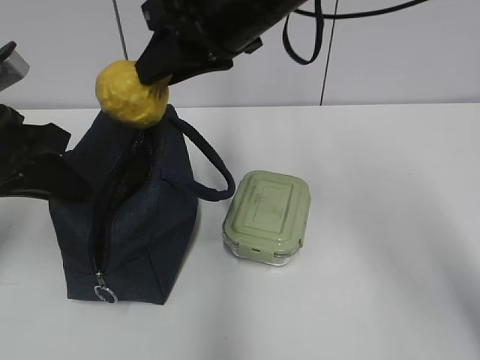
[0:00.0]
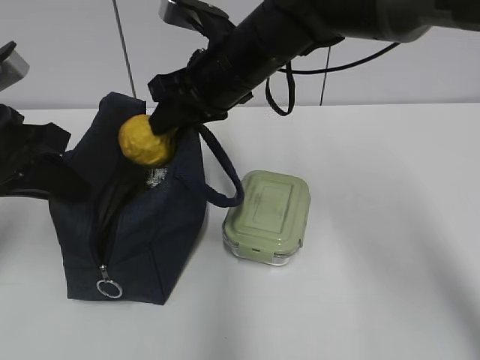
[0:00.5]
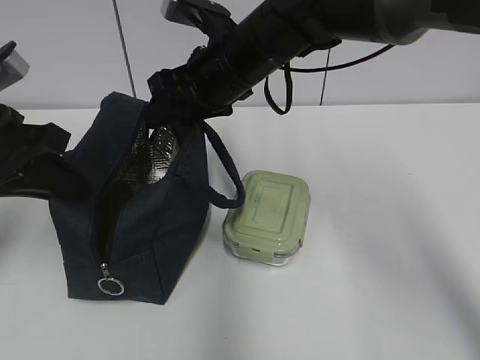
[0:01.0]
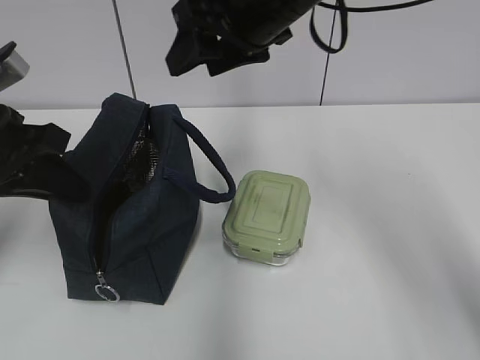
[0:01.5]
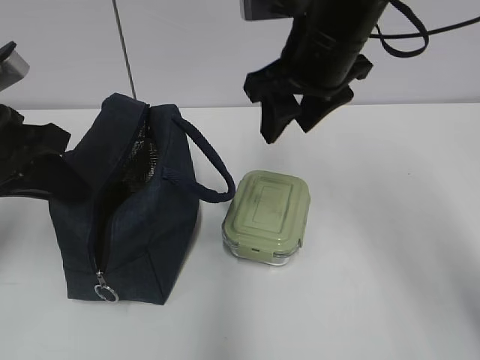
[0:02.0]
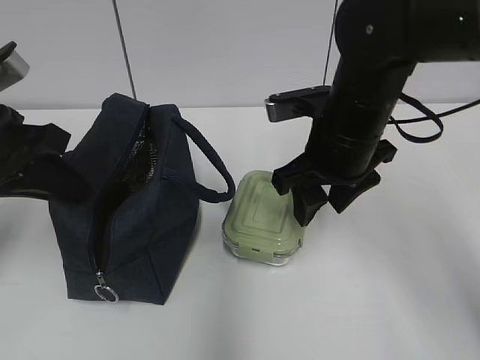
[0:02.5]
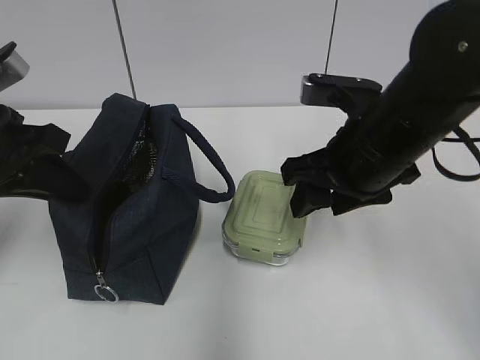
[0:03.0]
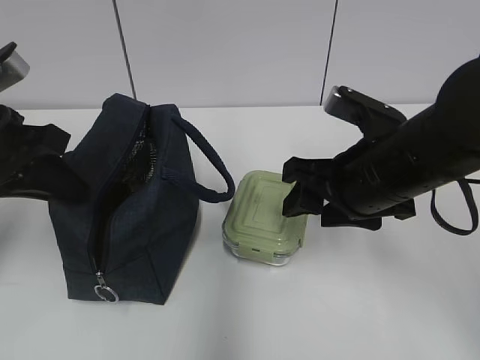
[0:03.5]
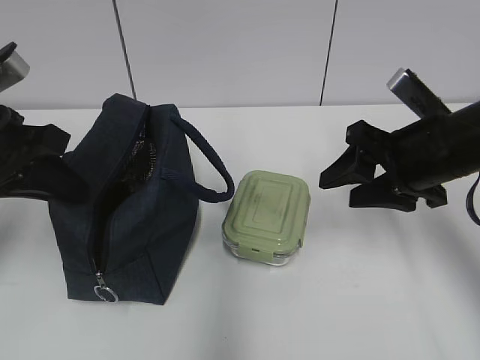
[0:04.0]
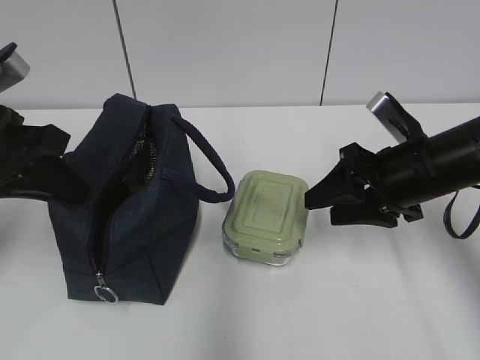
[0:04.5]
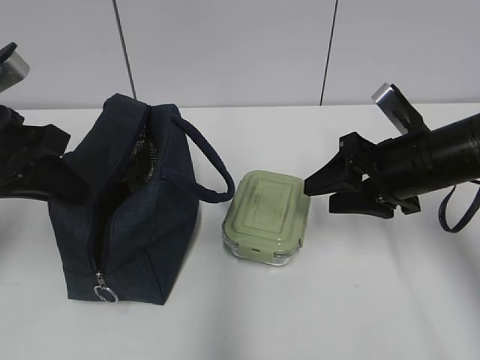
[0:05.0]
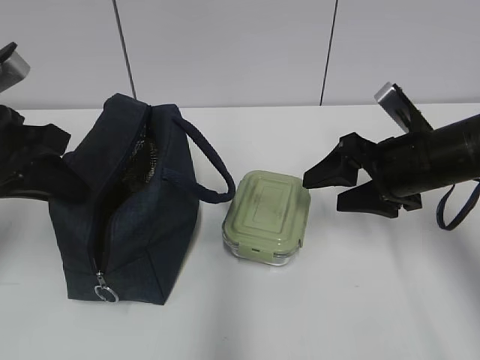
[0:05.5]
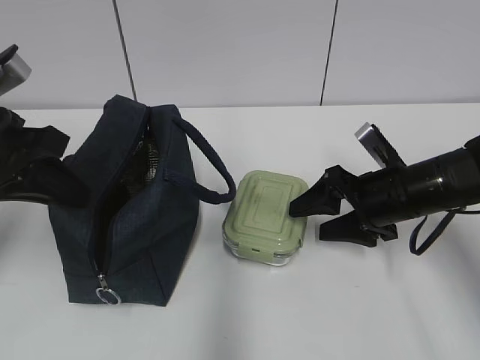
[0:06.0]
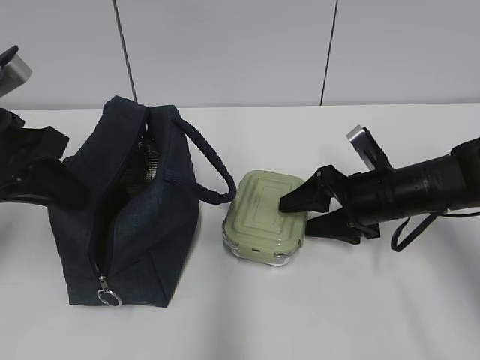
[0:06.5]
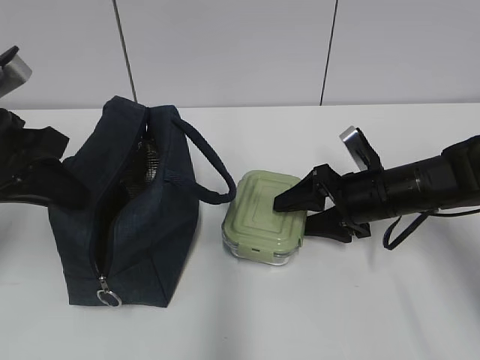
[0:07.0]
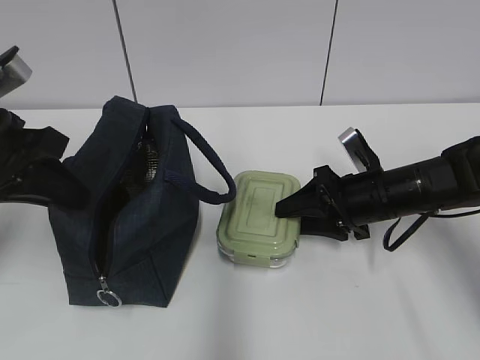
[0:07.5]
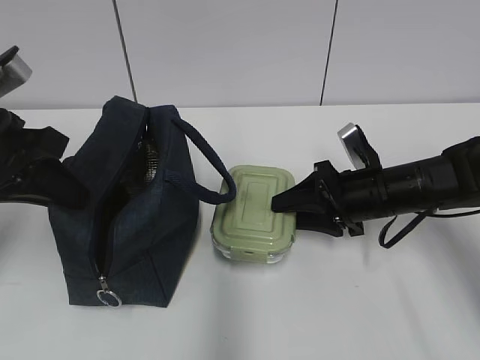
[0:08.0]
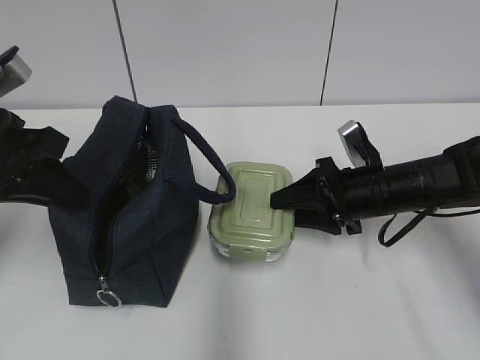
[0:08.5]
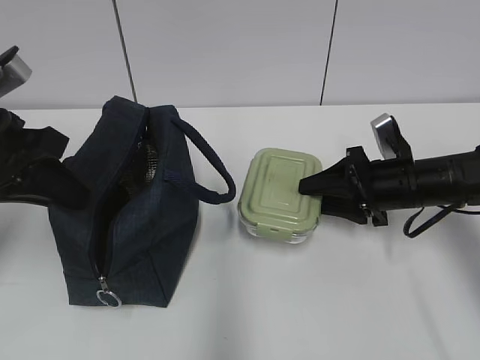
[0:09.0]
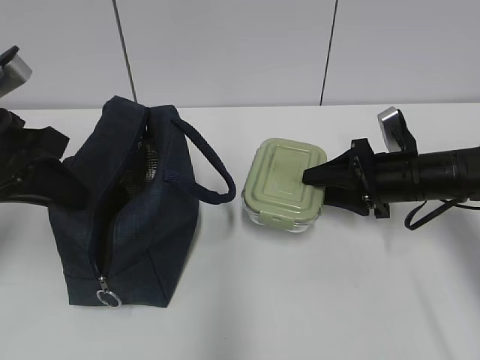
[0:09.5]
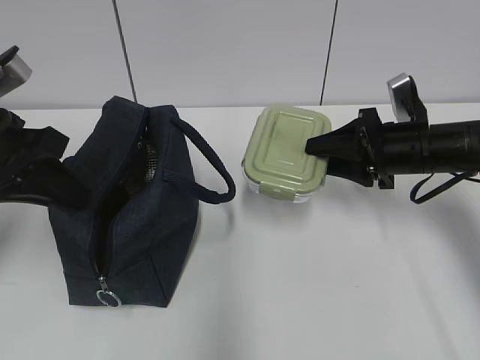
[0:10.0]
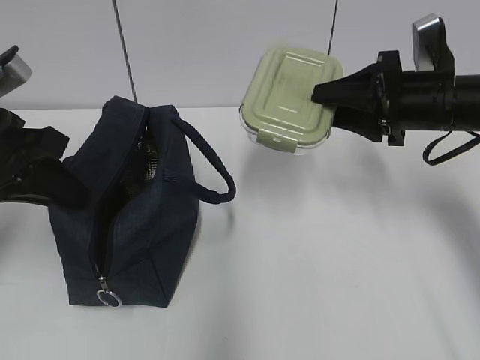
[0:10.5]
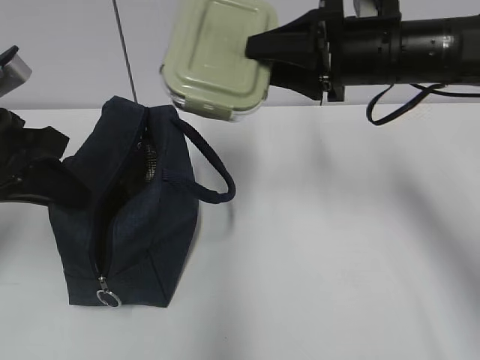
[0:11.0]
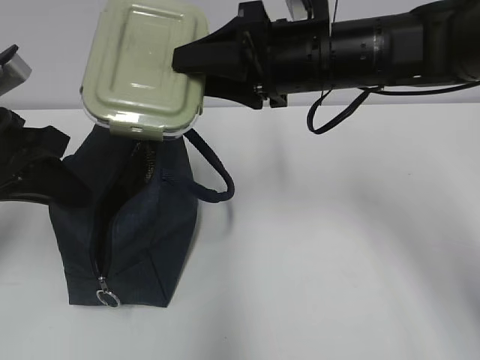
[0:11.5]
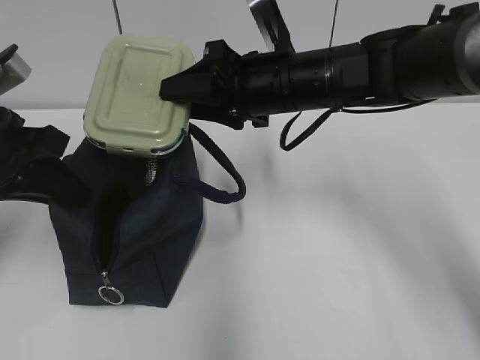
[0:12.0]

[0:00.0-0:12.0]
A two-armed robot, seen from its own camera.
Step, 0:01.5 to 0:07.5: Grab the lunch box with your right hand.
Step, 0:08.0 to 0:11.0: Grab the lunch bag with your right hand.
0:00.0 to 0:02.0: The right gripper shifts about 5 cm to the right.
0:02.0 to 0:04.0: The right gripper moves to the right, downward and backward, approximately 15 cm.
0:04.0 to 0:06.0: The right gripper moves downward, some 10 cm.
0:06.0 to 0:08.0: The right gripper closes up.
0:08.0 to 0:10.0: The right gripper travels upward by about 5 cm.
0:10.0 to 0:12.0: The right gripper heads to the left and upward, covering approximately 20 cm.

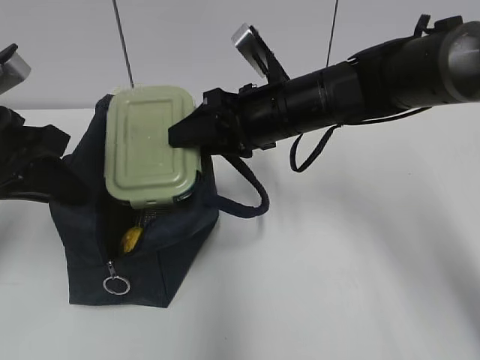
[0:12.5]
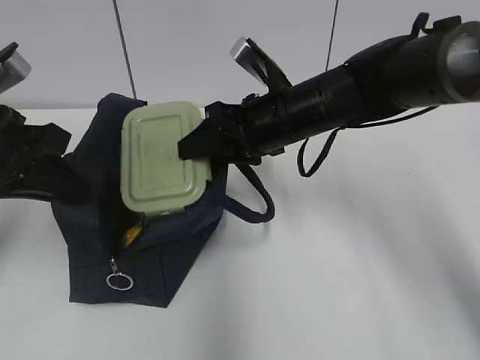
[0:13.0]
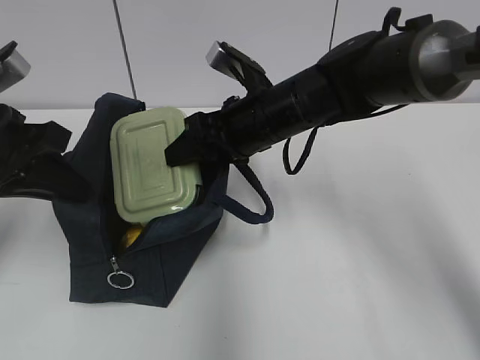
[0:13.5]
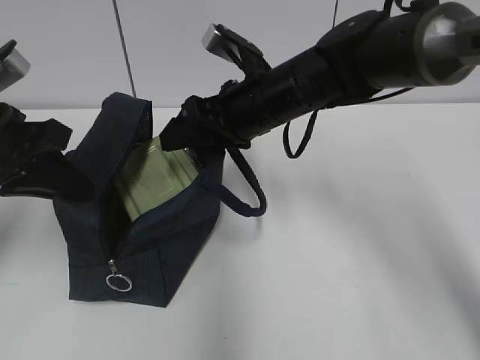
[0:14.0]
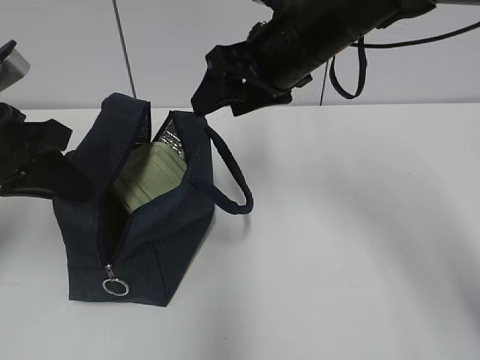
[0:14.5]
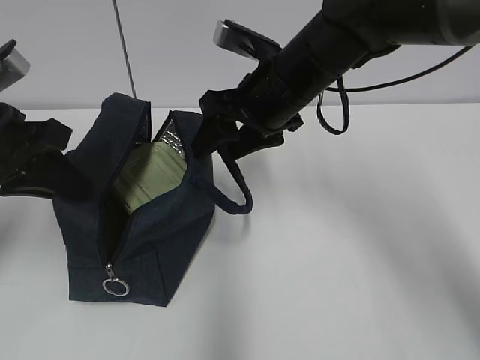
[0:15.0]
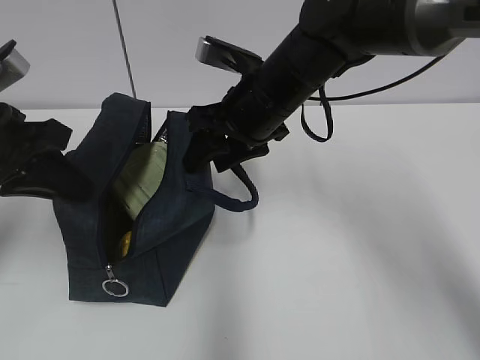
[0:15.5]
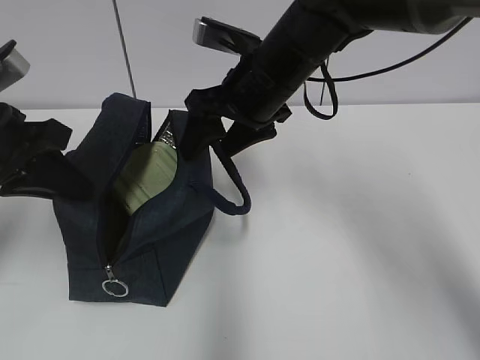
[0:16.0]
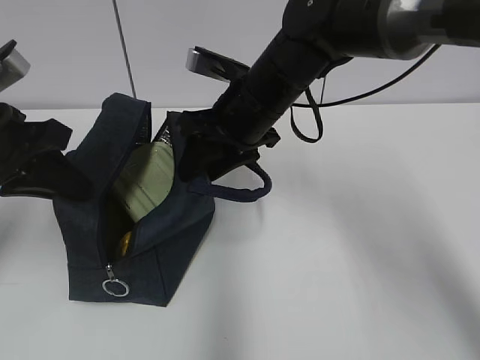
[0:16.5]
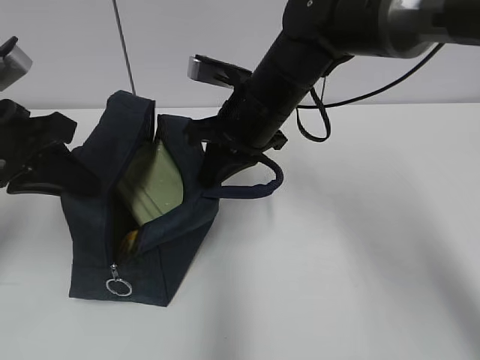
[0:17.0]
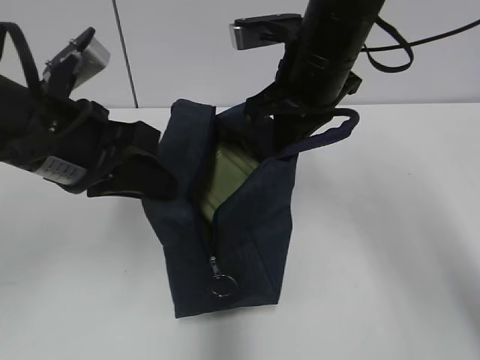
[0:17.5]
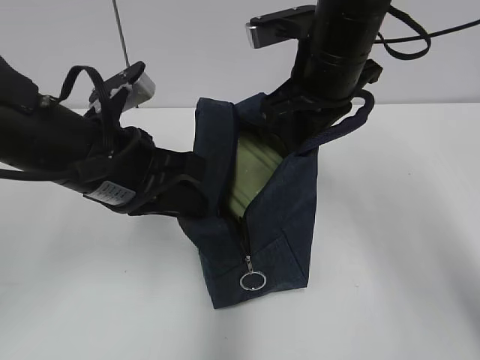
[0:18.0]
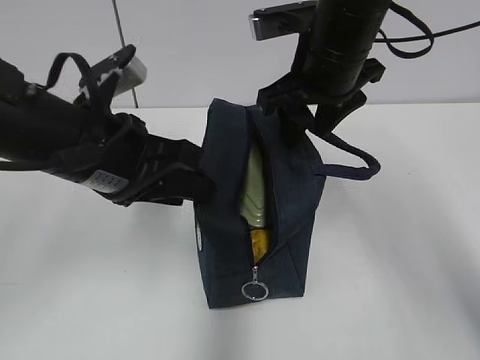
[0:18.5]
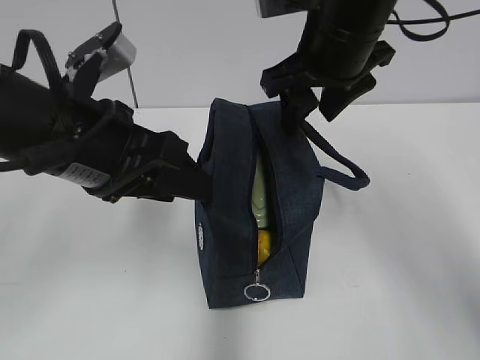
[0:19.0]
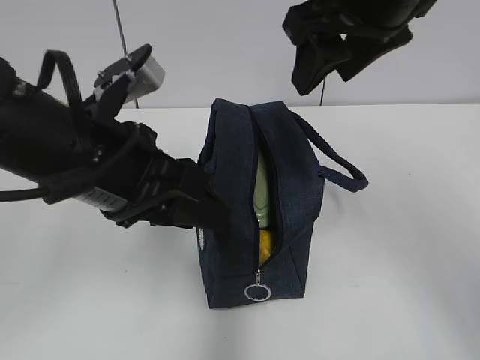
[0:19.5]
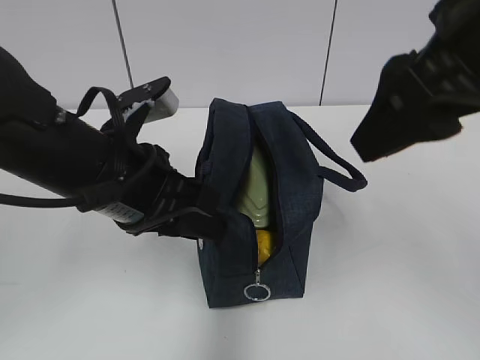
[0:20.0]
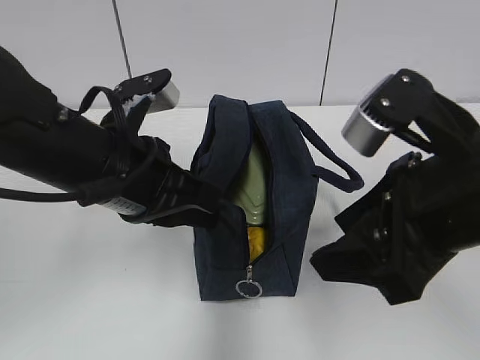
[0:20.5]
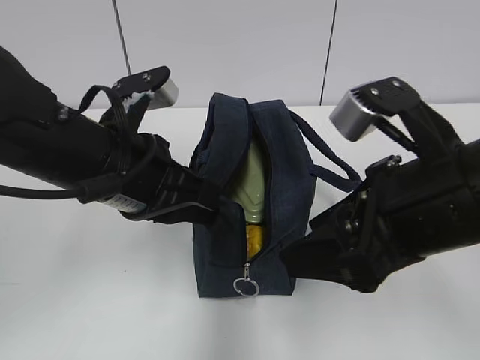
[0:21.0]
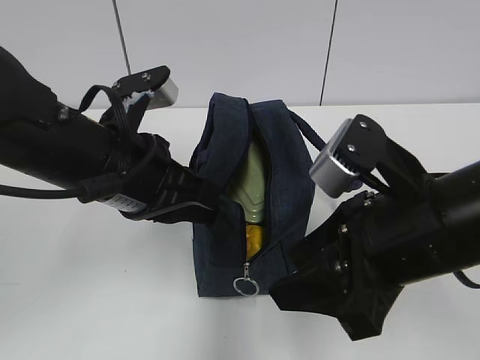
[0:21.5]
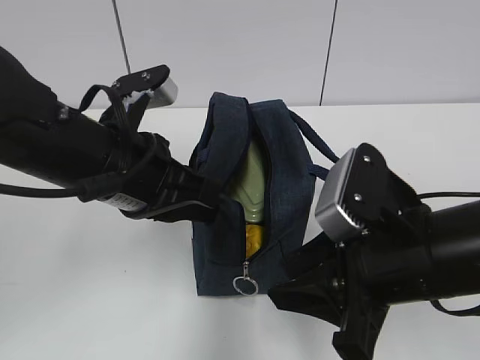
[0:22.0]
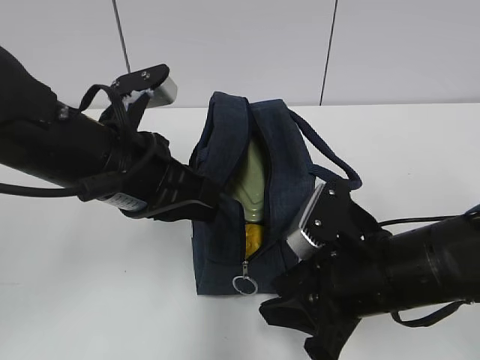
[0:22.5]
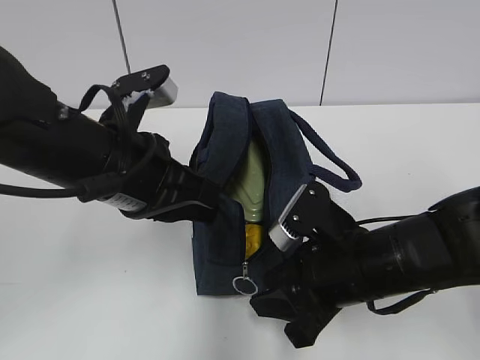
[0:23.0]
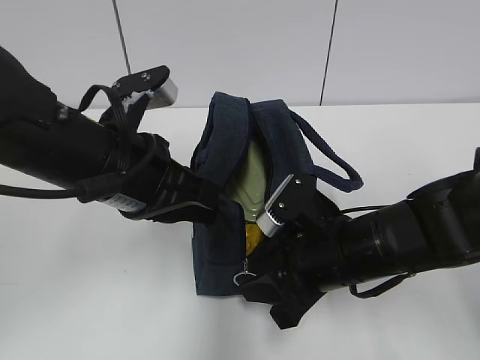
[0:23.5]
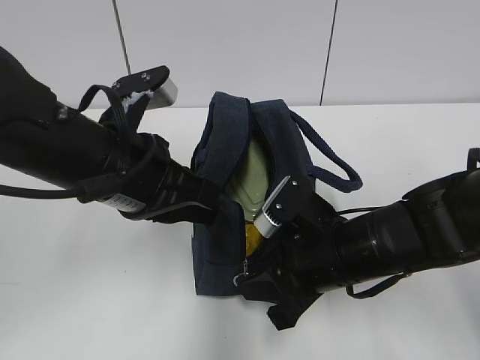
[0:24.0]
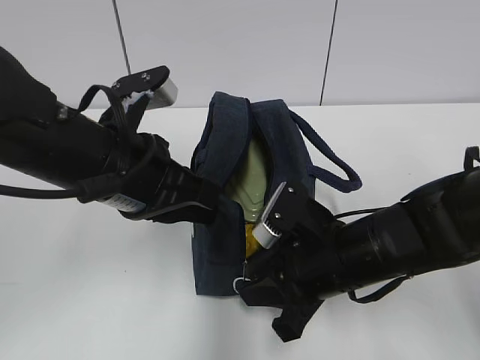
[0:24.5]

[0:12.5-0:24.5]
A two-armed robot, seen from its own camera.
Step, 0:12.5 to 0:14.5: Place it into the bag with your right hand.
Step, 0:16.0 to 0:17.5: Move the lunch bag to the left.
Step, 0:18.0 to 0:20.5: Grab the lunch bag with your left hand.
0:12.5 to 0:14.5: The right gripper heads upward, covering some 10 cm.
0:14.5 to 0:16.5: The right gripper shifts some 5 cm downward.
0:16.5 to 0:18.5: The right gripper is displaced upward and to the right by roughly 10 cm, and closes and opens again, while the left gripper travels to the right by roughly 10 cm, and opens up.
0:18.5 to 0:20.5: The right gripper moves backward, about 15 cm. Meanwhile the left gripper closes its fingers.
0:20.5 to 0:22.5: The right gripper travels downward by some 10 cm.
0:22.5 to 0:24.5: The right gripper closes up.

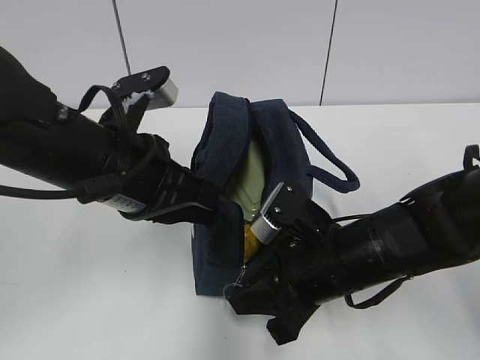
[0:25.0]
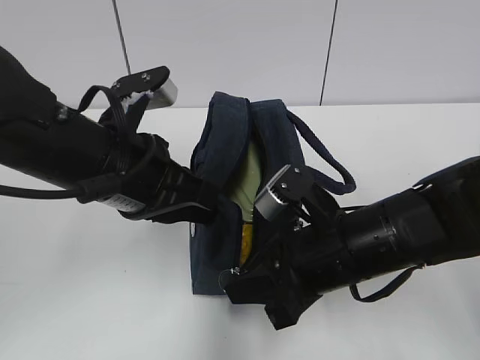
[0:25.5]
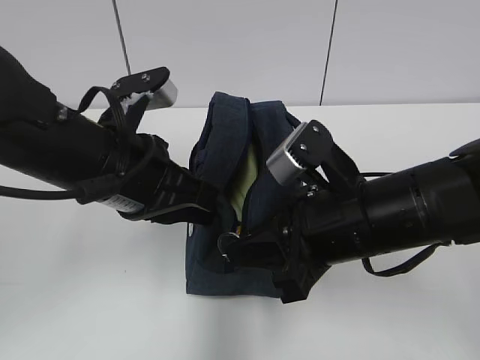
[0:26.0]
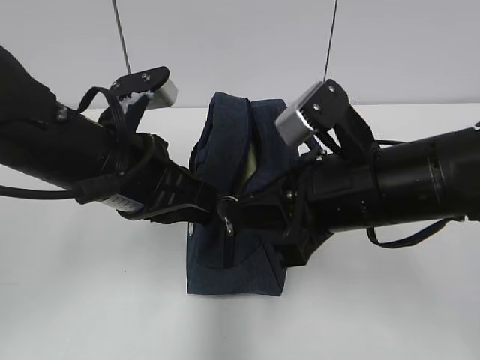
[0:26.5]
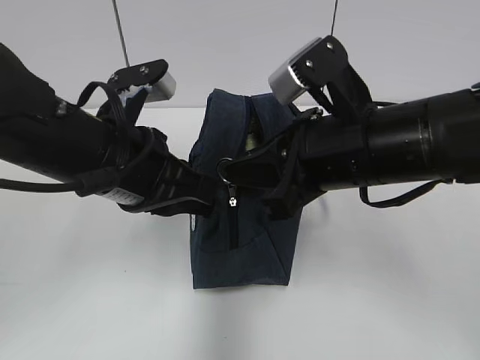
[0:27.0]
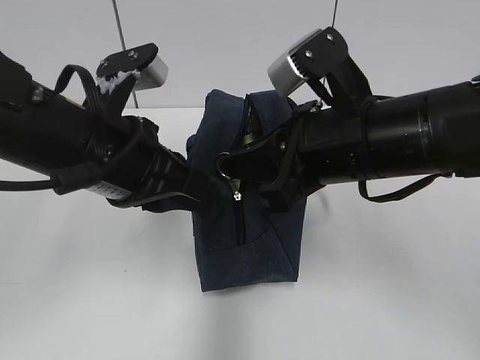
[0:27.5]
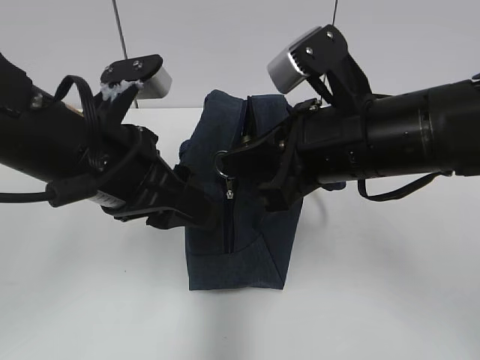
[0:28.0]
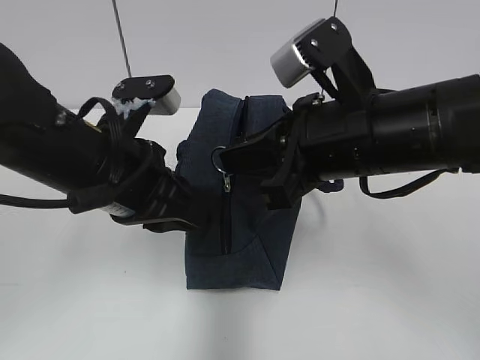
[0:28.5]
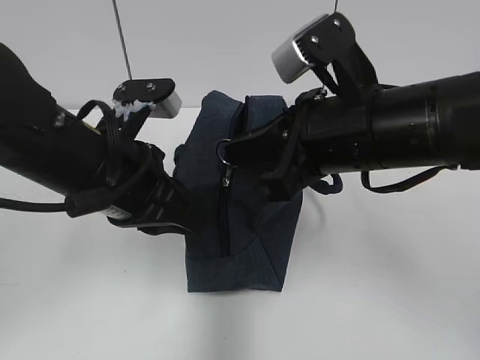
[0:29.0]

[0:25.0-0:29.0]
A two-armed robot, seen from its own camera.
0:25.0 to 0:27.0: The right gripper is displaced upward by some 10 cm.
0:27.0 to 0:29.0: The left gripper opens, then closes again.
